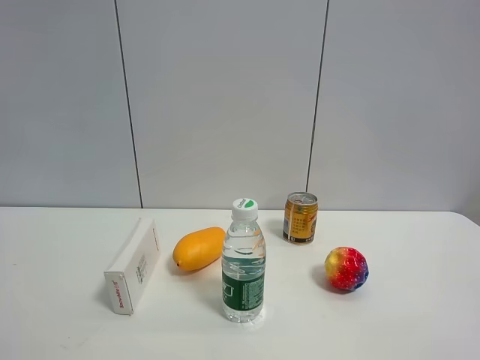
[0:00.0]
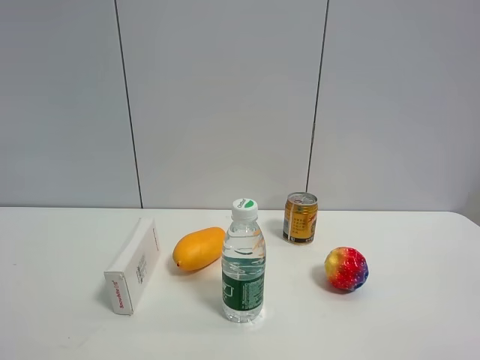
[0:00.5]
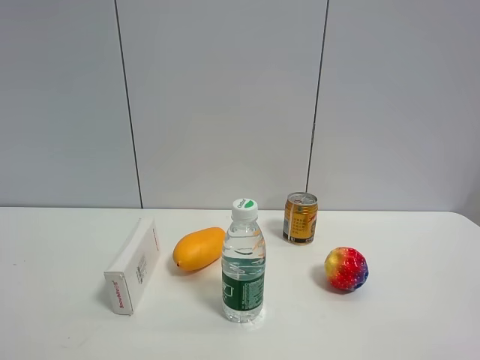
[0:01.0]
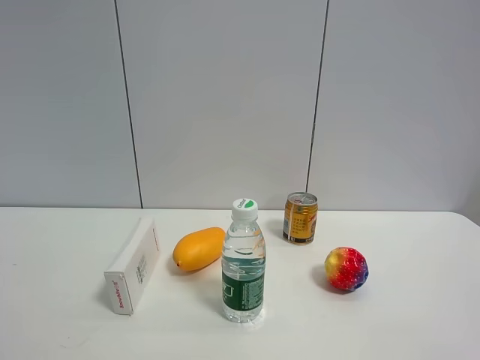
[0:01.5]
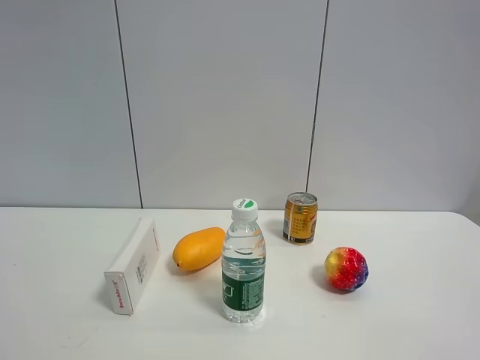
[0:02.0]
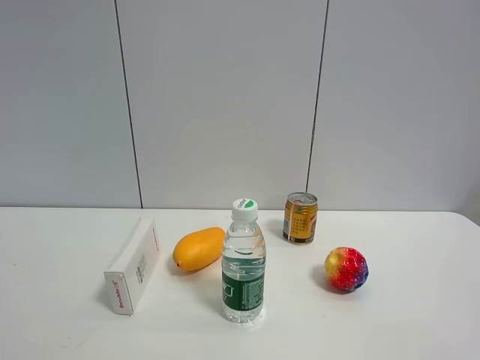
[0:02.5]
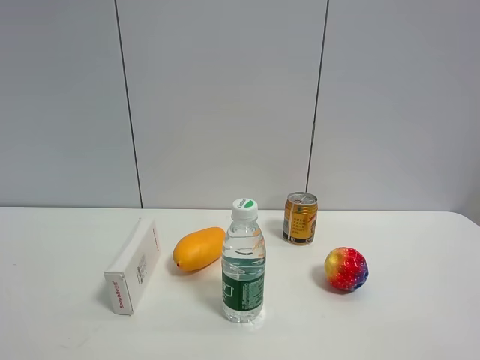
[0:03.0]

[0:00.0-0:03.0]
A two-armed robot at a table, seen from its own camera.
Task of the whole recording: the gripper move the object.
0:01.5 to 0:03.0: Neither gripper changes place.

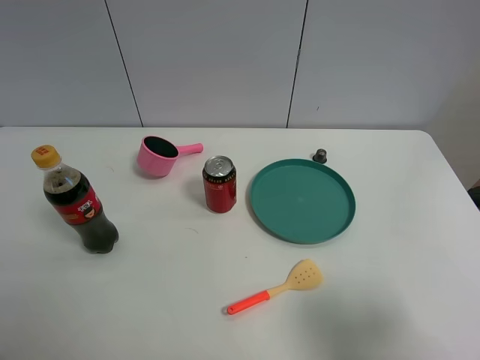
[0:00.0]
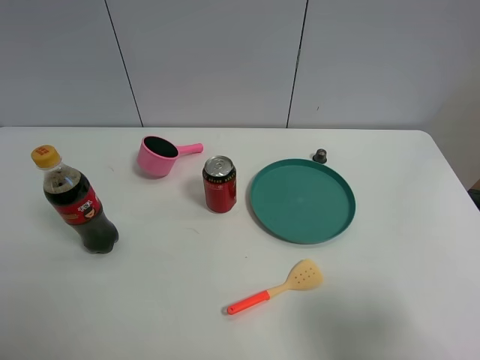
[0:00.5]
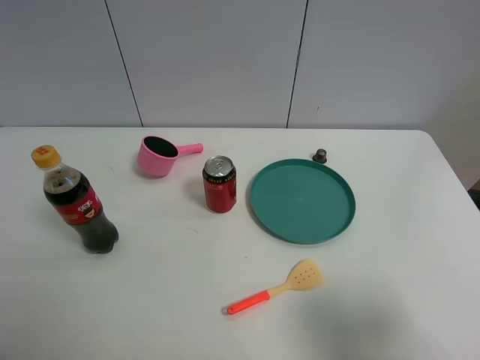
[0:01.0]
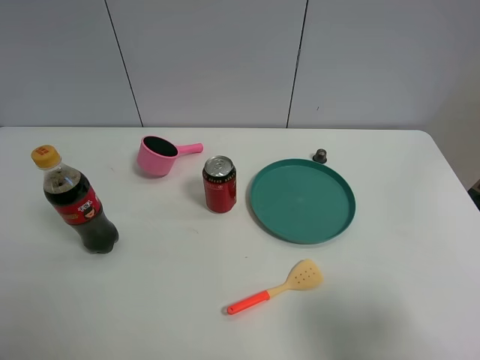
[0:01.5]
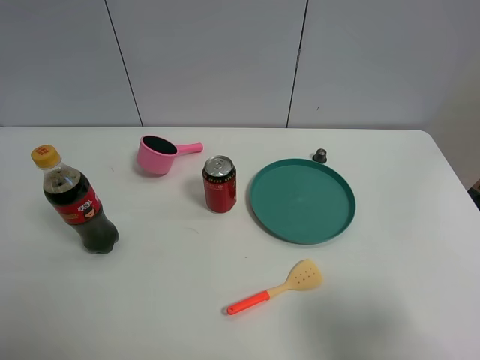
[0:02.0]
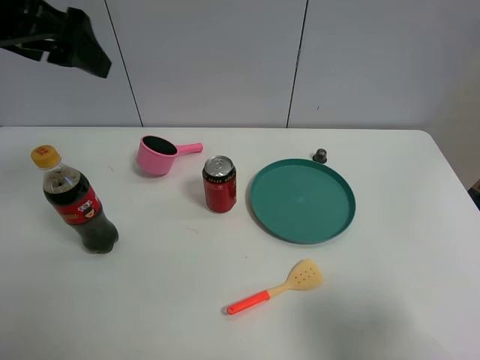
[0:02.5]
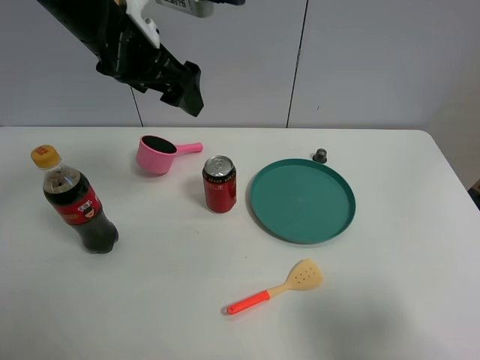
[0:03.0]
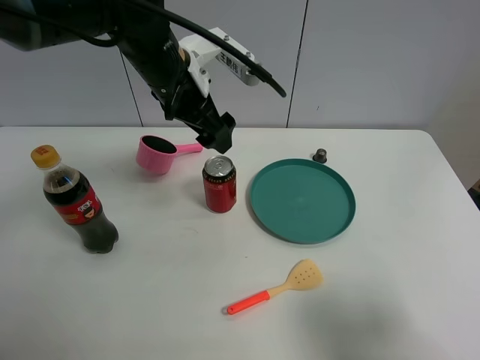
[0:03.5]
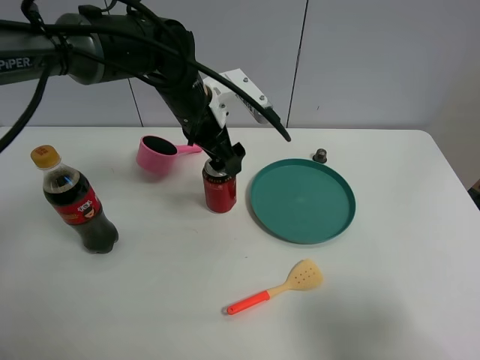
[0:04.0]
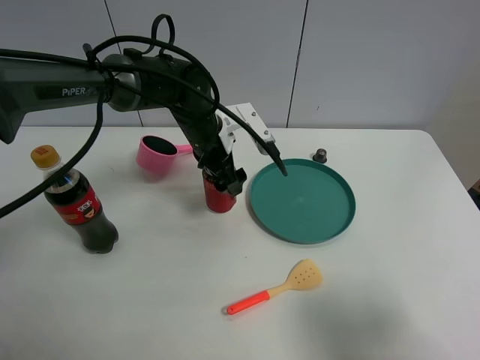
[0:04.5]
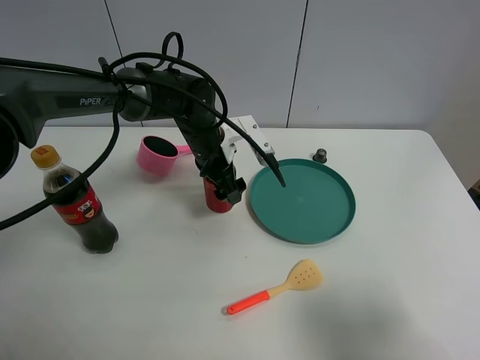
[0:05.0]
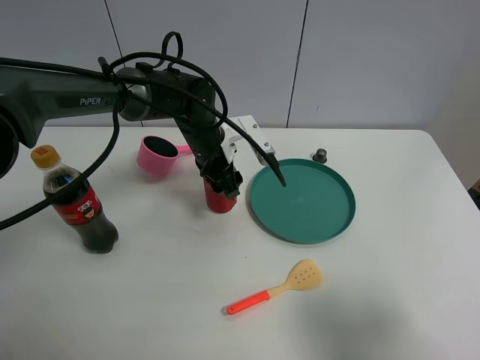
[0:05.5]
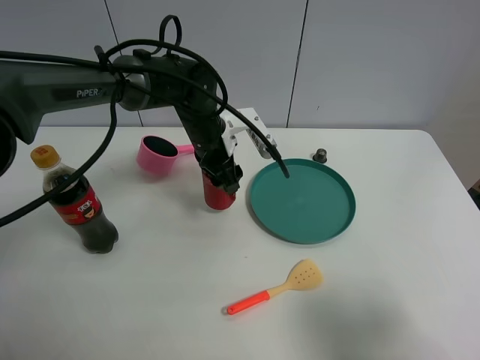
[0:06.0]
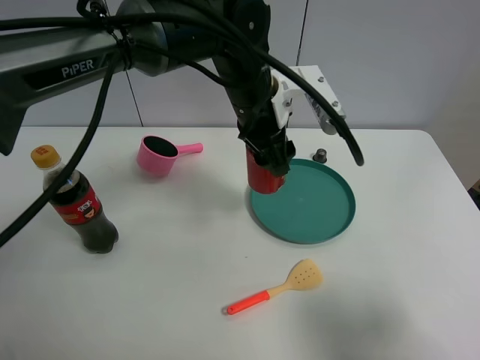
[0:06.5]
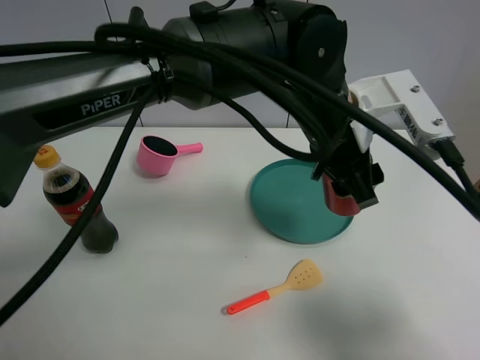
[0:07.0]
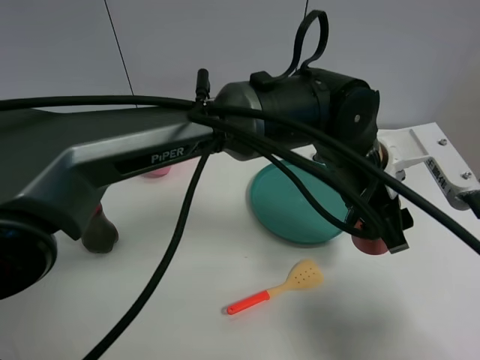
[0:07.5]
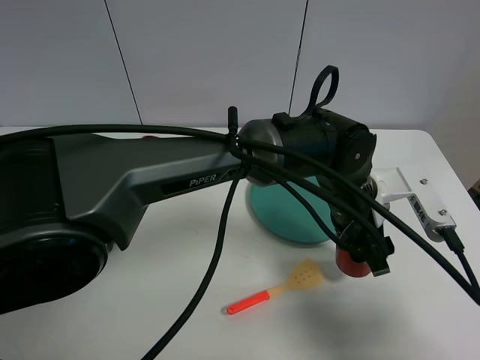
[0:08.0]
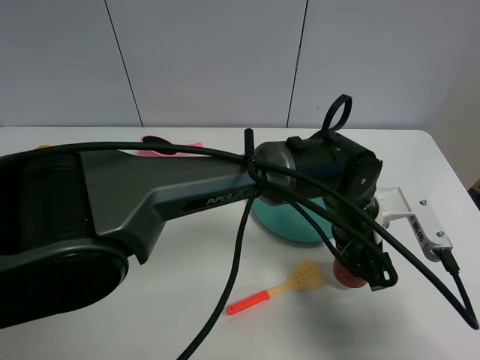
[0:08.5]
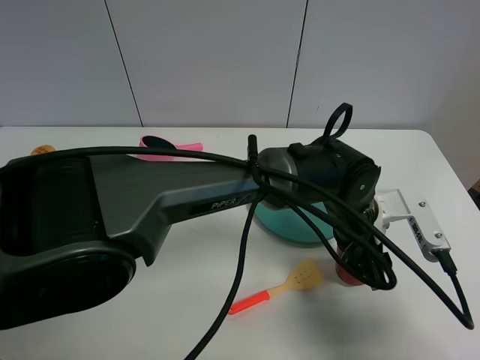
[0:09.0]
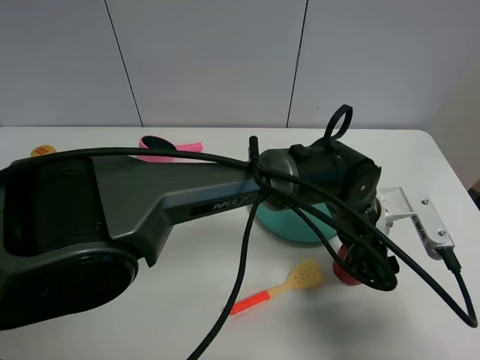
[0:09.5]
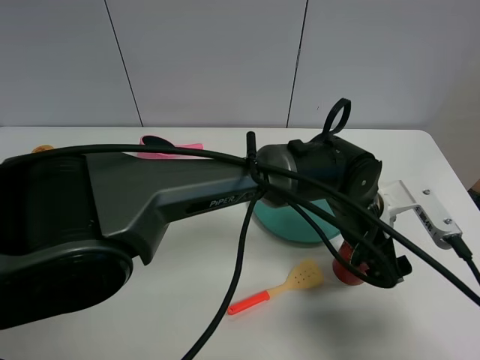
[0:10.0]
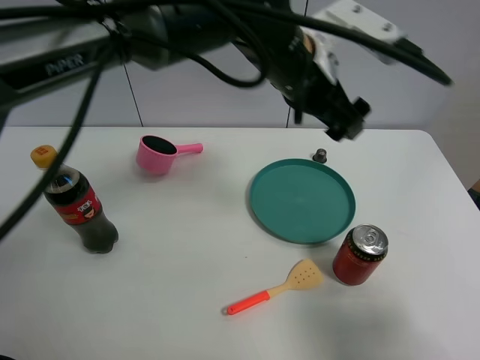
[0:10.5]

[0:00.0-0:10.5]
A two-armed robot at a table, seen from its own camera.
Task of the whole recording: the gripper move the object.
Step, 0:00.0 to 0:05.5: Grasp the Jia Duo Bao with the left gripper.
Step, 0:06.0 to 0:09.5: Place the Jia Duo Bao on the table with the left gripper.
0:02.0 to 0:04.0: The left gripper shifts some 40 cm to the right, forward and downward.
0:04.0 to 0:06.5: The left gripper shifts roughly 10 cm to the right, and closes its fingers.
0:06.5 to 0:08.5: The left gripper is displaced to the right, downward and backward by some 20 cm.
0:08.5 to 0:10.5: The left gripper is displaced upward, to the left and forward by roughly 25 cm, and opens up.

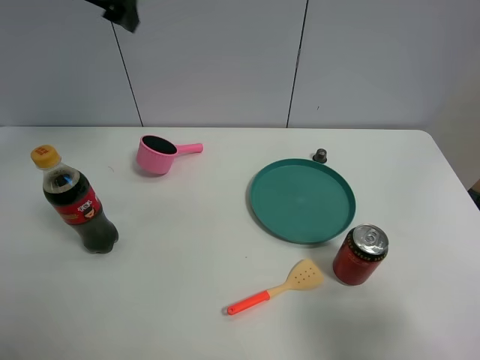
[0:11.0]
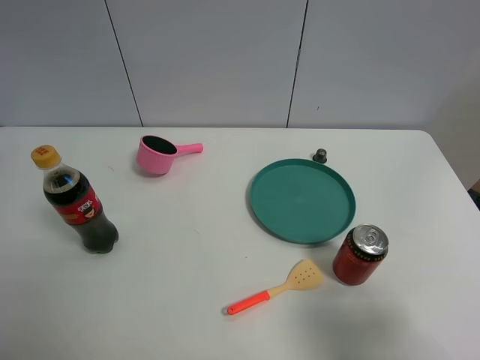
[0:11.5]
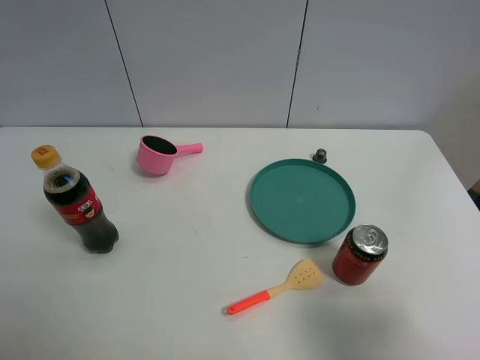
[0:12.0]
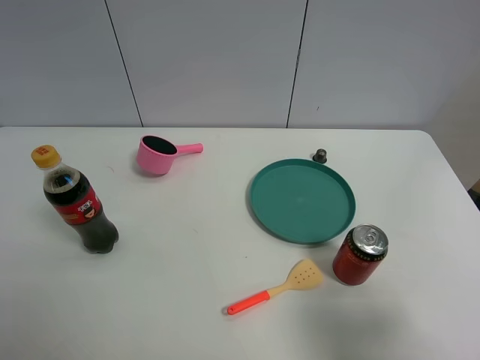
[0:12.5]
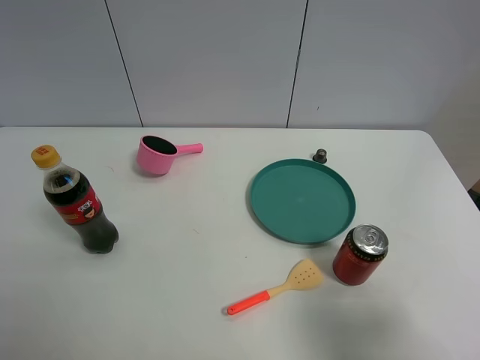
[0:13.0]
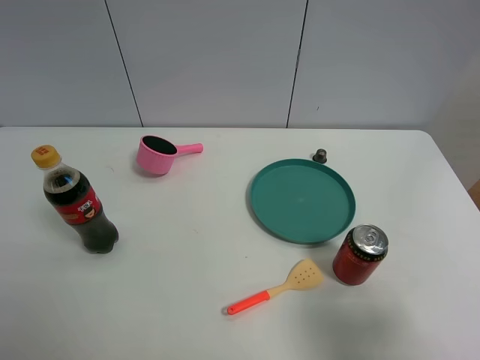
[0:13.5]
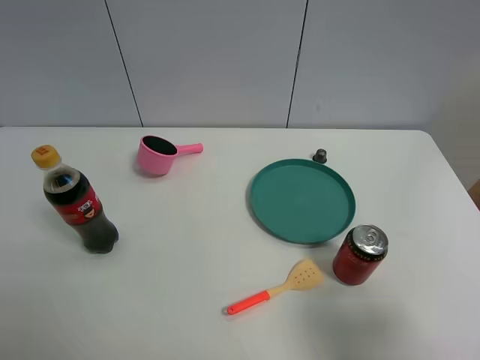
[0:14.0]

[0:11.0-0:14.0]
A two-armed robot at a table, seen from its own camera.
Task of the whole recording: the gripper move the object.
0:11.0 to 0:12.5: The left gripper travels backward by some 40 cm.

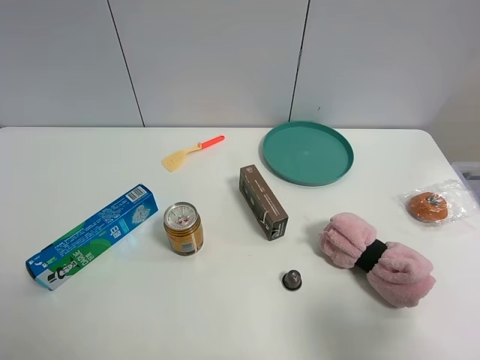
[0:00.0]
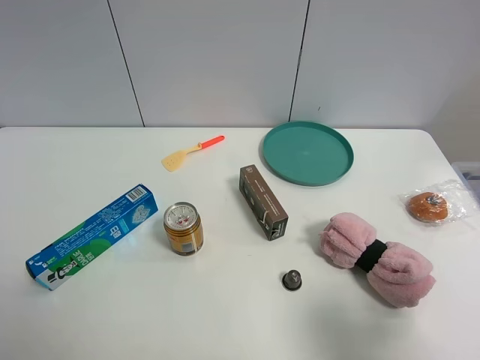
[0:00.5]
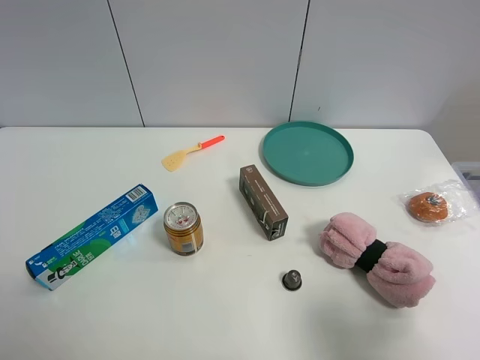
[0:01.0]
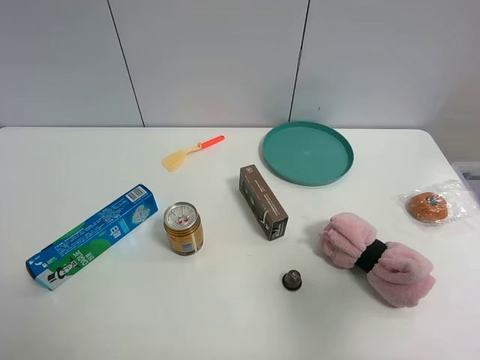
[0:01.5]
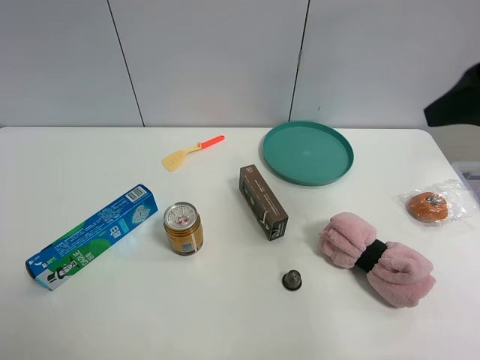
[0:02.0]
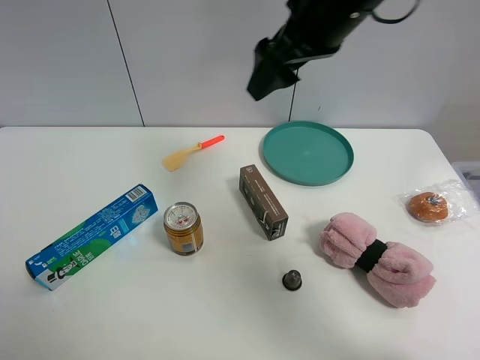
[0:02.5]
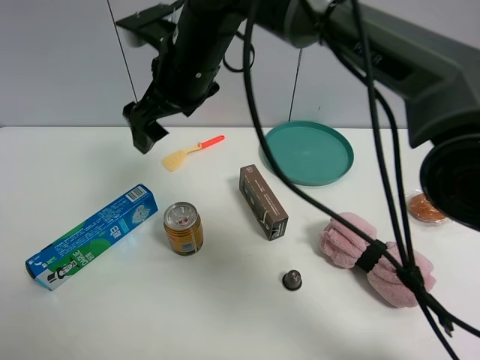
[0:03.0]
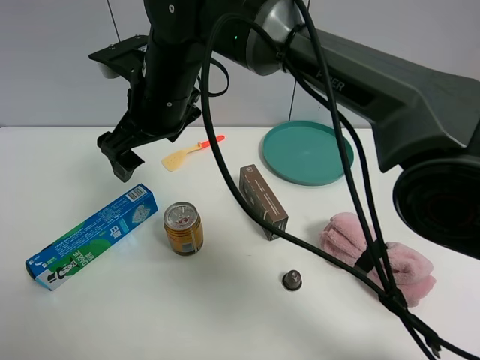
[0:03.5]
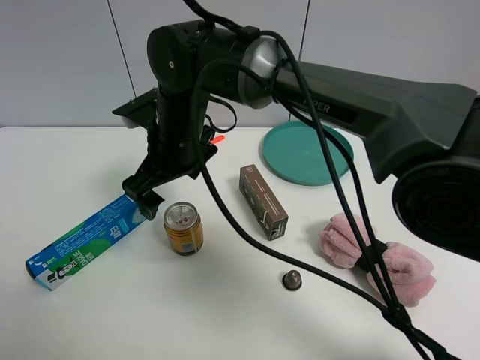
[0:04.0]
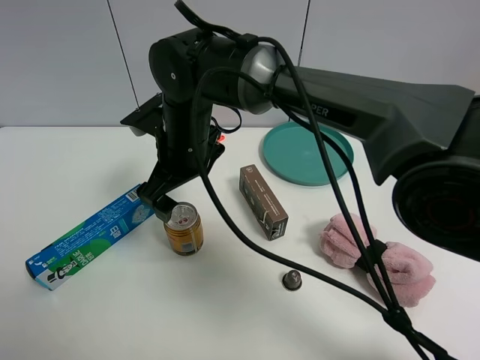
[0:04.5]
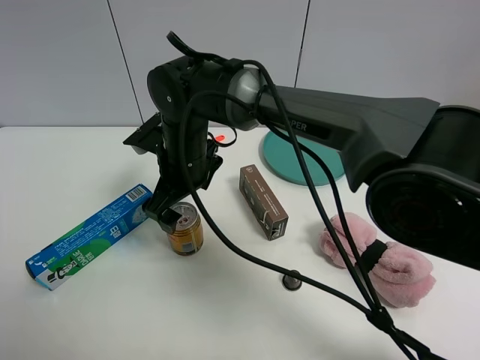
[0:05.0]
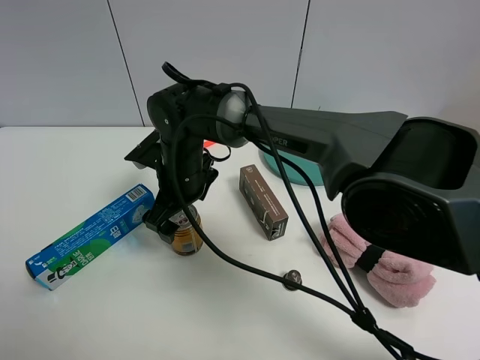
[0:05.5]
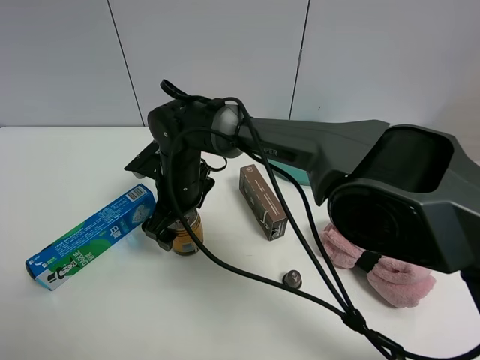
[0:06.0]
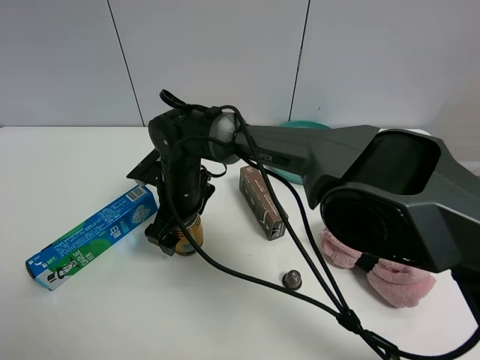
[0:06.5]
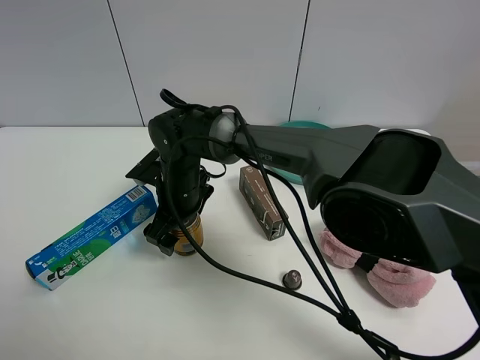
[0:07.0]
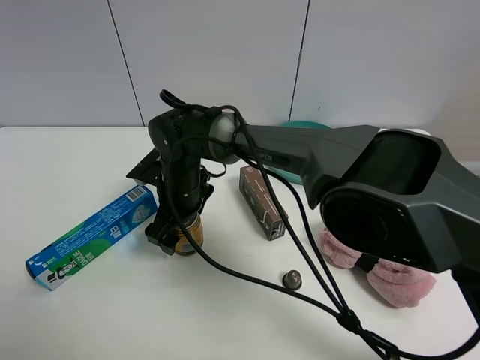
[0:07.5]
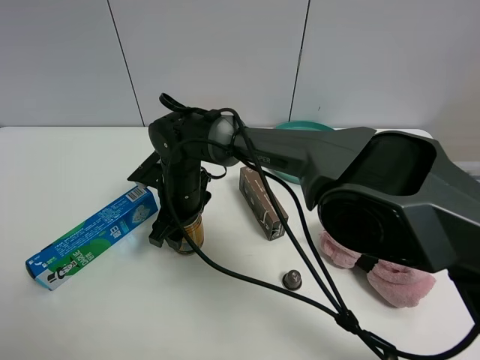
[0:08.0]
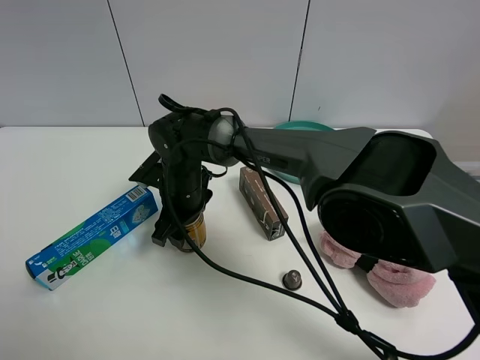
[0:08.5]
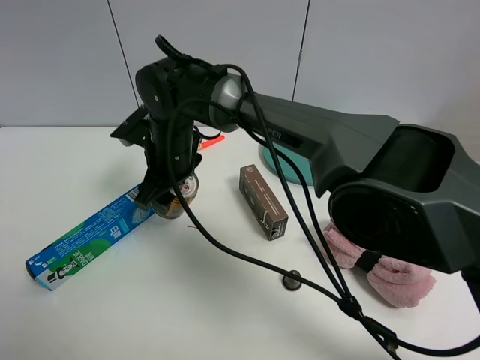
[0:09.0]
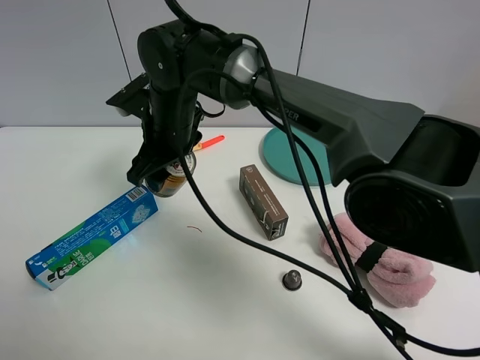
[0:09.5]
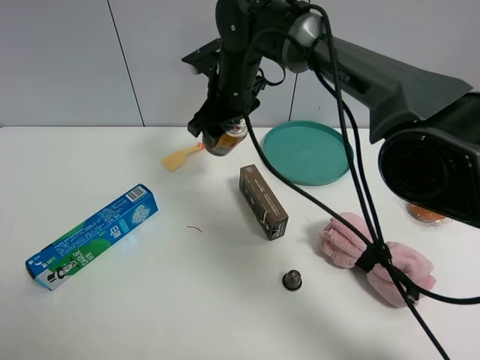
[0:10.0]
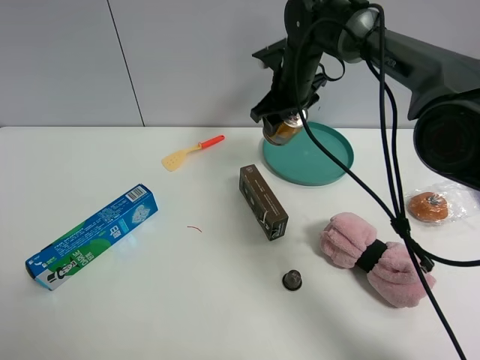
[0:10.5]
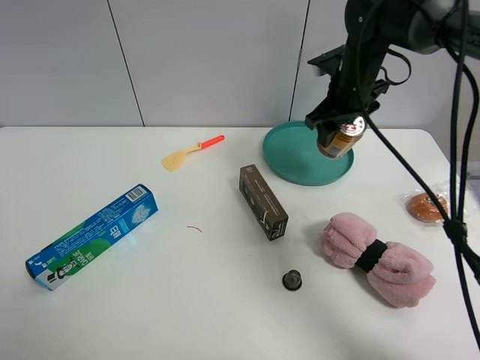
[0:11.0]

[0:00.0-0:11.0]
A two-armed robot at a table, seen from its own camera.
Task of the whole recording: the gripper move the object.
Step, 0:00.0 to 0:08.0: Grasp the red bull with the right gripper.
0:00.0 to 0:02.0: The right gripper shifts some 25 cm forward and upward, and closes its fingers.
0:02.0 to 0:03.5: The right gripper moves to the left, approximately 35 cm, and opens up.
0:03.5 to 0:05.5: The right gripper travels downward by some 15 cm.
0:05.5 to 0:07.5: The grippers make only small movements.
0:07.5 to 0:09.0: The right gripper moves upward, roughly 5 cm, and closes up.
0:09.0 to 0:11.0: The right gripper travels to the right by approximately 30 cm.
